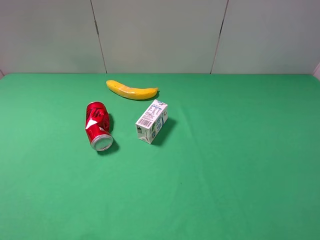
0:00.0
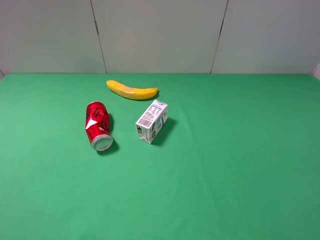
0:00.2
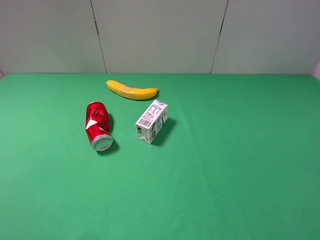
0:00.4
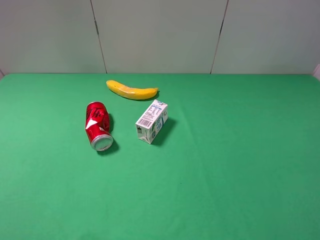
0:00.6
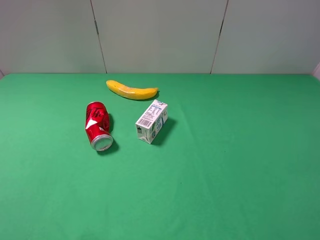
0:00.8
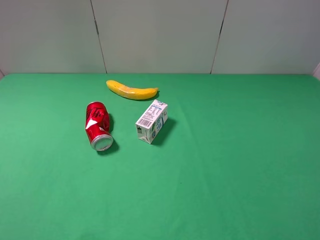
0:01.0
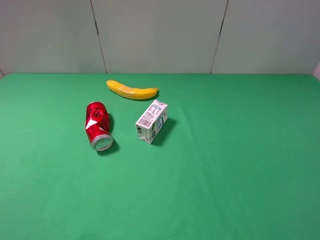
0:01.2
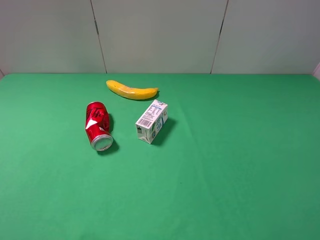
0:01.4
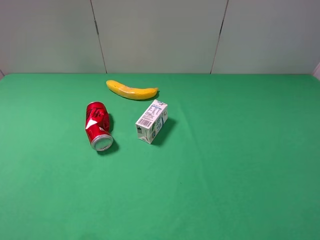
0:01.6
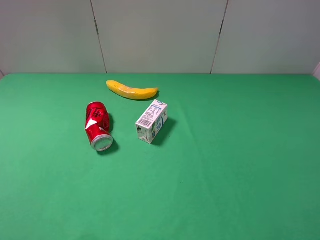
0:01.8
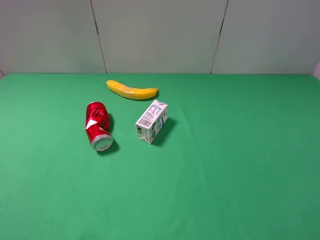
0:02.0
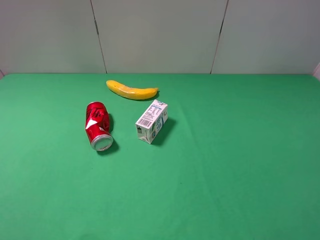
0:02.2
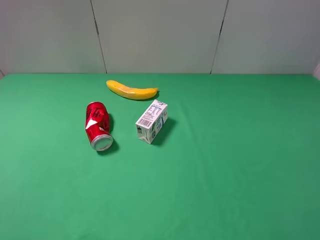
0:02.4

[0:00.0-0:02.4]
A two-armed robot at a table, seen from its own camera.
Task of the whole recording: use the right gripper to pick up the item and transfer it from the right gripper to the left gripper.
0:01.2 to 0:02.4: Neither gripper changes place.
